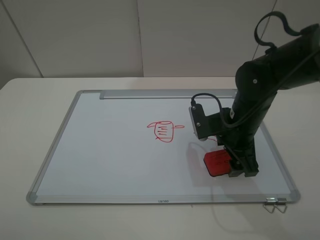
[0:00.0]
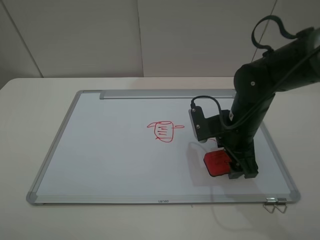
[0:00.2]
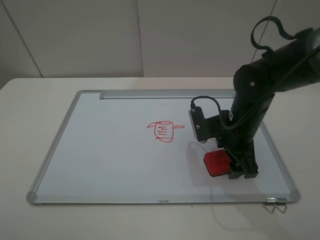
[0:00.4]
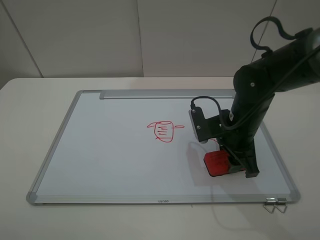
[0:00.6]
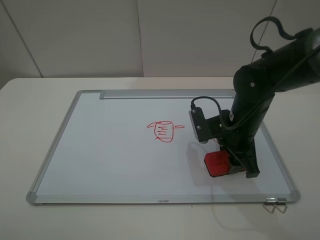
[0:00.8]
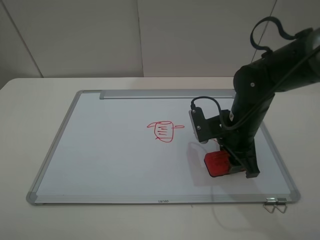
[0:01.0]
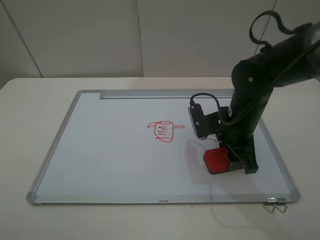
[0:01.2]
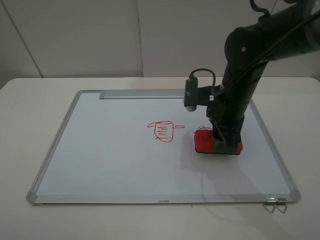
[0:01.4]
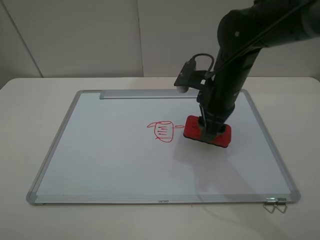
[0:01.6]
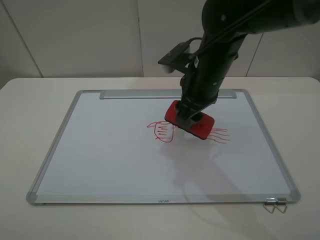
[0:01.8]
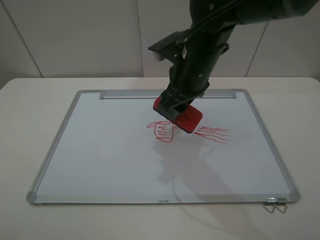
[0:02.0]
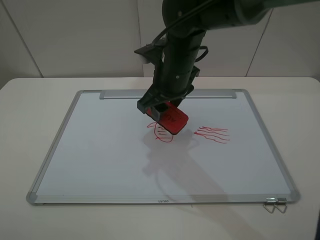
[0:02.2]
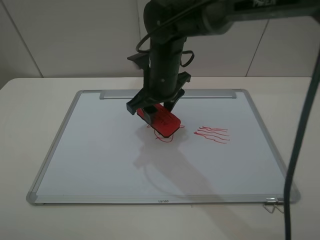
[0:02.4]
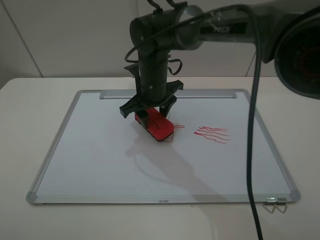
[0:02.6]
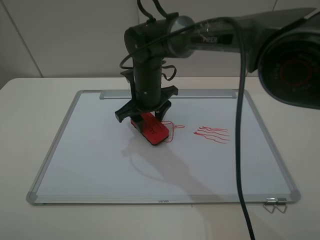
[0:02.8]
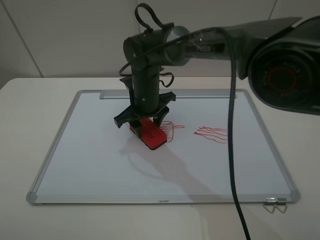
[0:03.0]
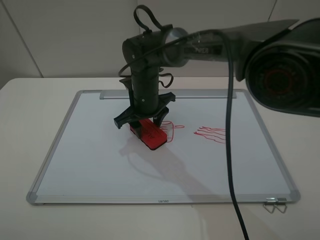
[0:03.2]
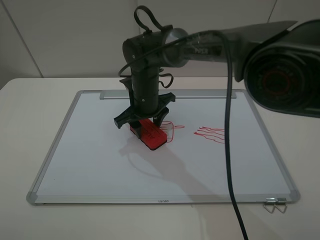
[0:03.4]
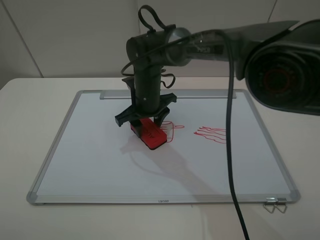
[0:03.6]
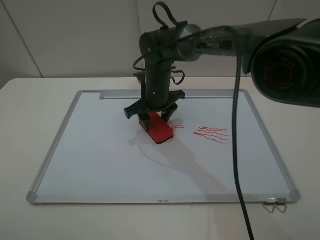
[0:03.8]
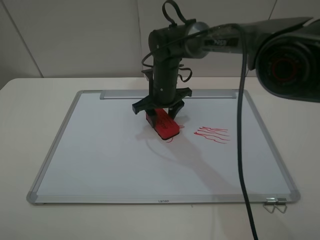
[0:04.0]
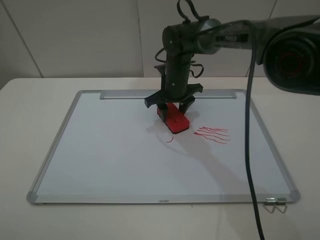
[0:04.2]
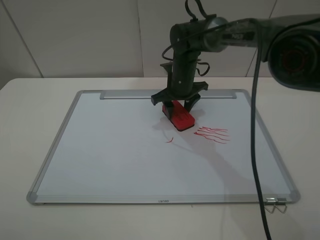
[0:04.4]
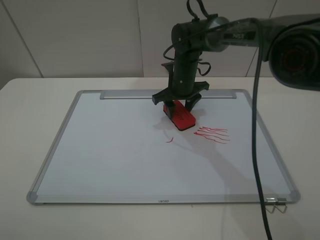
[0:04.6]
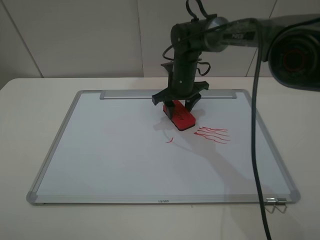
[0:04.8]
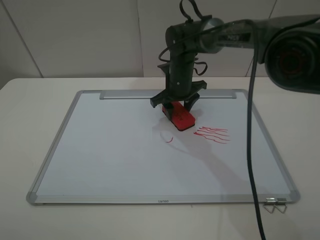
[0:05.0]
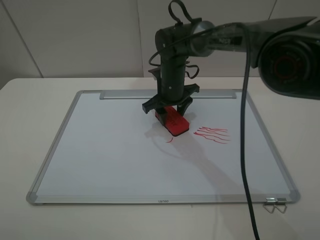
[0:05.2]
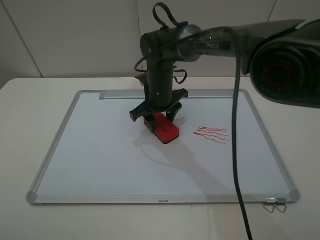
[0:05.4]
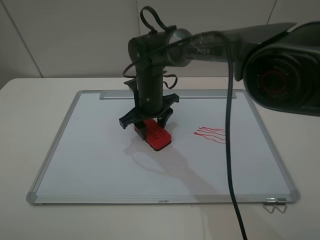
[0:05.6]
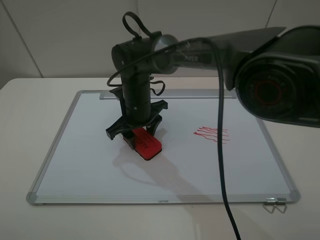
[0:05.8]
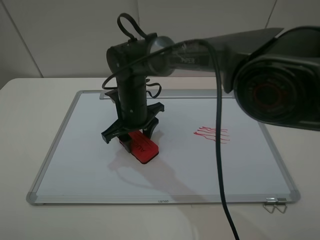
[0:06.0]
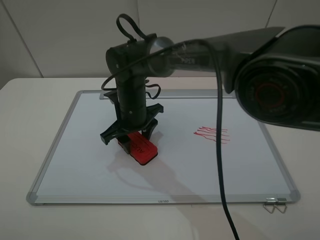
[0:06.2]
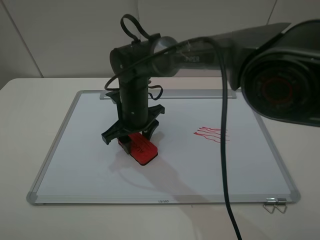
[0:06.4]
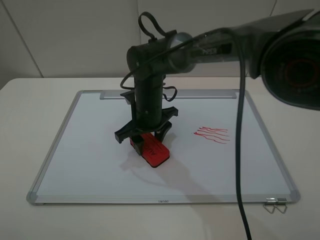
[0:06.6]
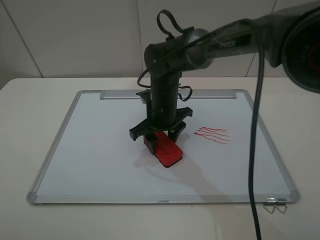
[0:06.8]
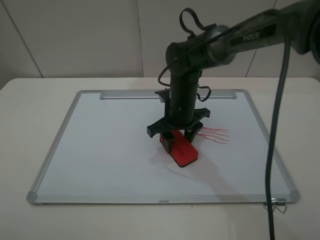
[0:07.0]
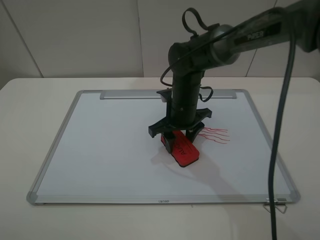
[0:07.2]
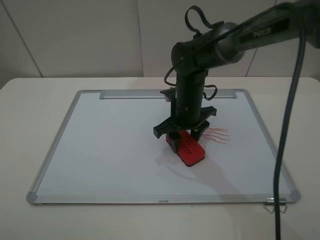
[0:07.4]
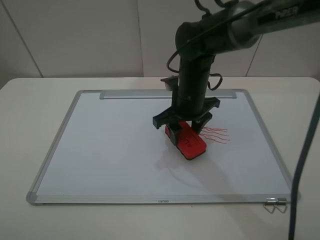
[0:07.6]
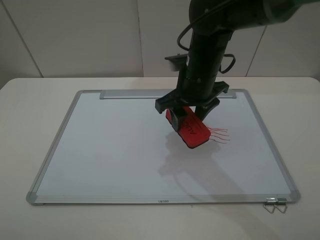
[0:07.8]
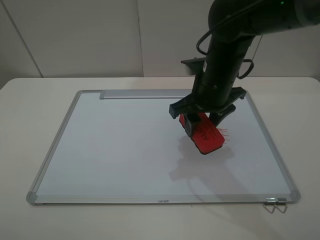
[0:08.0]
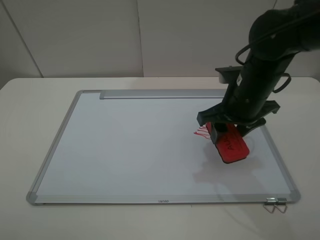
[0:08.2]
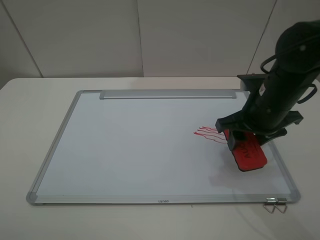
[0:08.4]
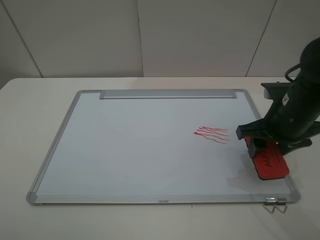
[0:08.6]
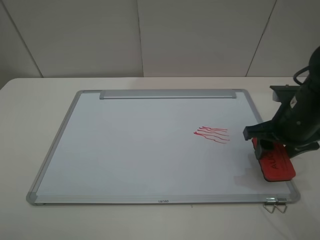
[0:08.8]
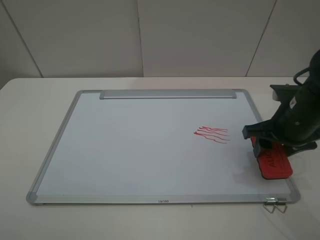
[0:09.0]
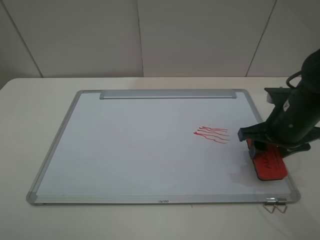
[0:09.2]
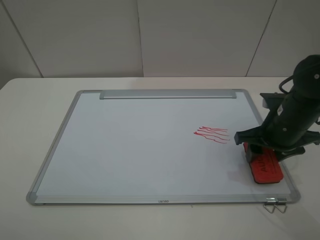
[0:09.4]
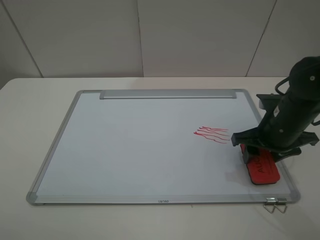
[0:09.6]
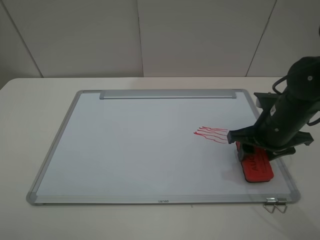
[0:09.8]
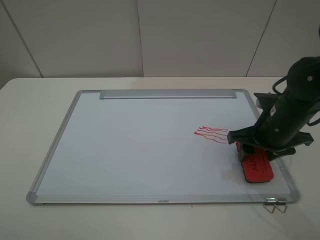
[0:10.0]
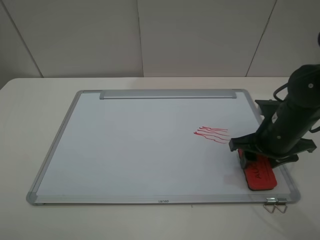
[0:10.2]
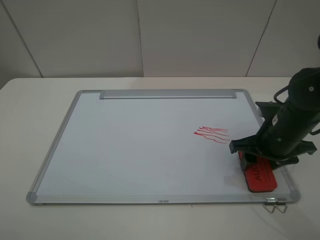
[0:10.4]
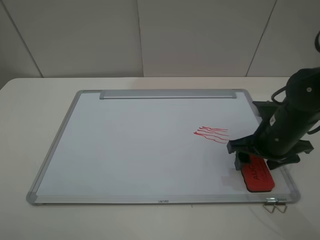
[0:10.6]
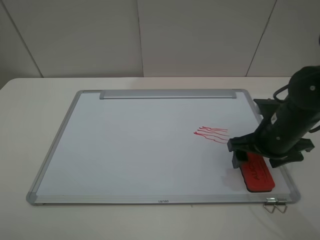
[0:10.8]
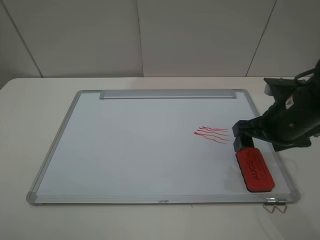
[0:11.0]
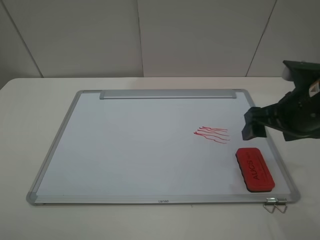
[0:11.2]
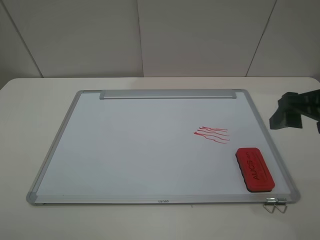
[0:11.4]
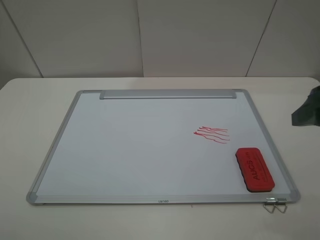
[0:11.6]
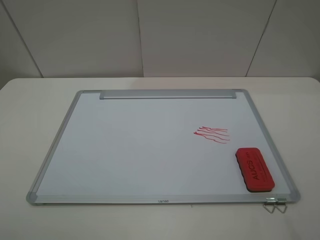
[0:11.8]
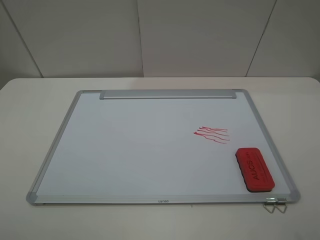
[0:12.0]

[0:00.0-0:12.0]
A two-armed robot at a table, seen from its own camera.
Step, 0.8 to 7.6 s: Grasp the eraser and wipe the blackboard with the right gripper.
Step, 7.8 to 10.8 s: Place the eraser with the right gripper.
0.0 to 1.6 s: The right gripper shifts approximately 5 cm upward, and closes its fingers.
1.6 to 3.0 s: The right gripper travels to the left, downward and forward by about 15 cm.
3.0 to 4.4 s: The right gripper travels to the right and forward by about 10 cm.
4.4 to 6.0 s: The right gripper goes some 15 cm to the left and backward.
6.0 to 7.6 s: The right gripper travels to the right by some 10 cm.
7.6 to 9.0 s: The right gripper is displaced to the right and backward by roughly 20 cm.
9.0 to 10.4 s: There are only small adjustments of the grippers.
10.4 to 12.0 s: The right gripper goes about 25 cm upward and backward, and opens its fingers.

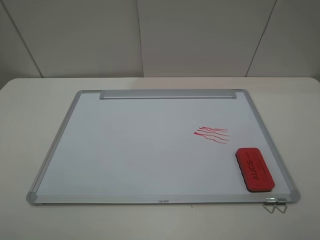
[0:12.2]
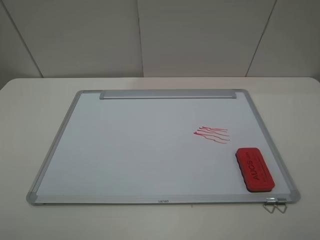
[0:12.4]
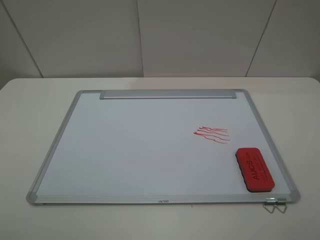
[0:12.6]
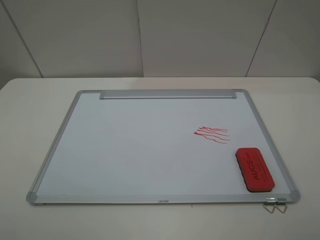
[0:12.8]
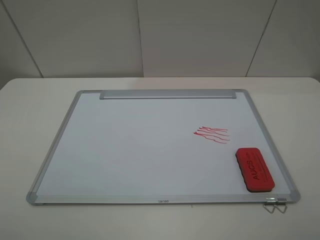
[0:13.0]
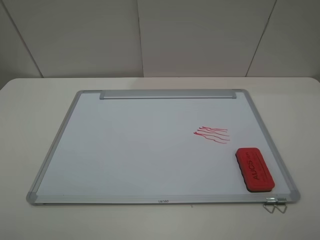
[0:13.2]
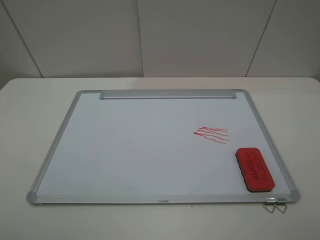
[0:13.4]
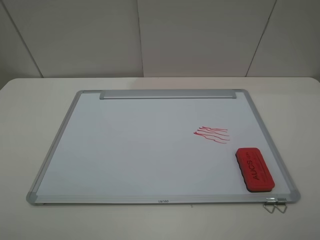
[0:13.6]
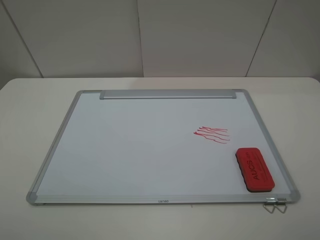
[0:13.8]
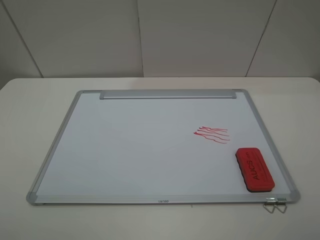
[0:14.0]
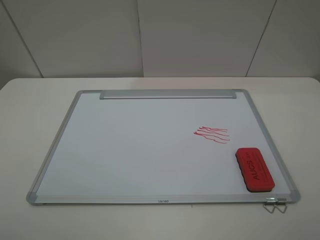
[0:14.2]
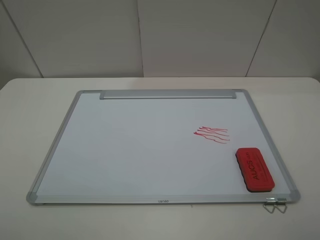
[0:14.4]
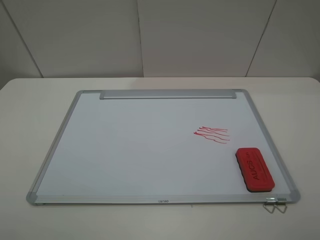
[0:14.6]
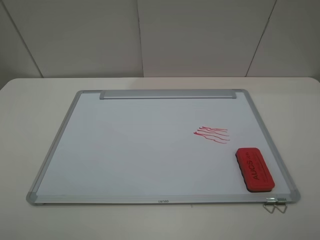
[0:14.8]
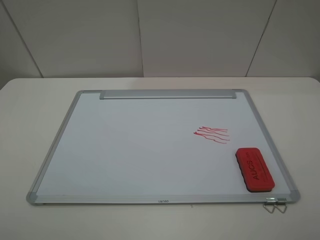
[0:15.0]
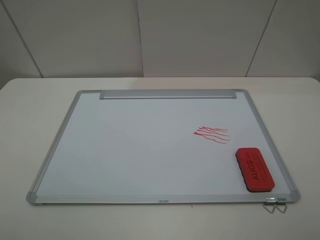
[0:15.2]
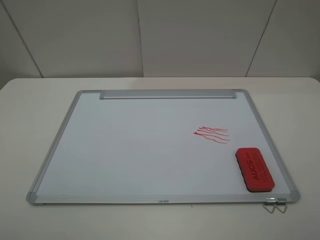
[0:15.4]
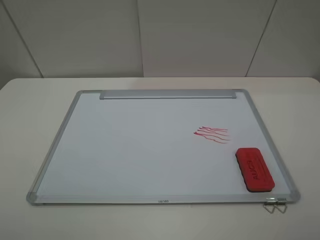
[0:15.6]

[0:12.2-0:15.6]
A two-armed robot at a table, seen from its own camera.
13.8 to 15.6 s: The two grippers keep their place.

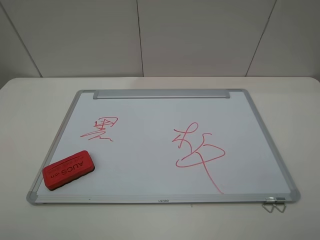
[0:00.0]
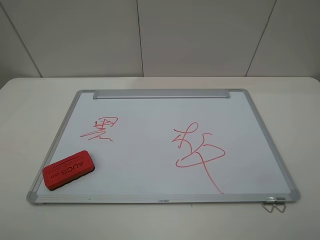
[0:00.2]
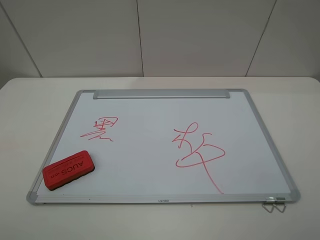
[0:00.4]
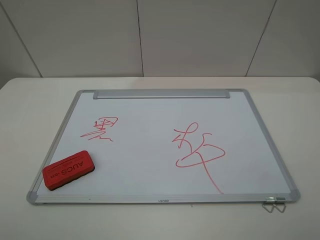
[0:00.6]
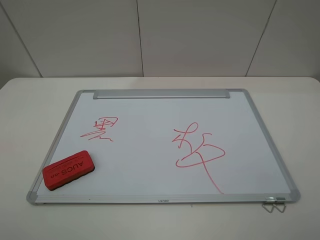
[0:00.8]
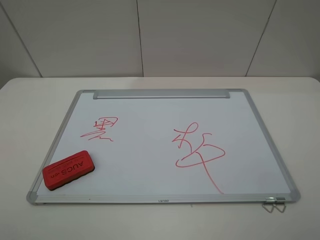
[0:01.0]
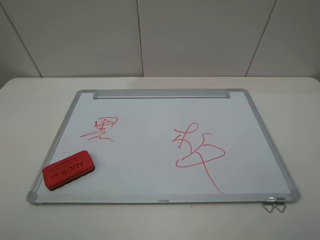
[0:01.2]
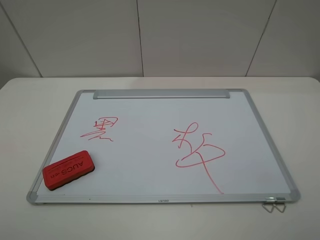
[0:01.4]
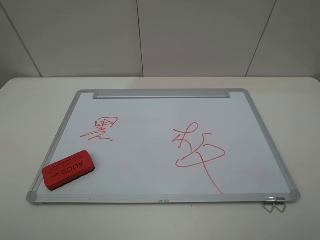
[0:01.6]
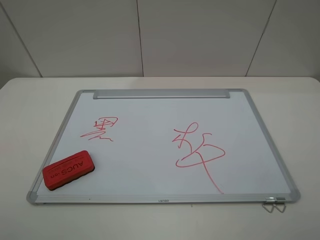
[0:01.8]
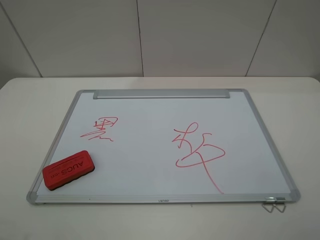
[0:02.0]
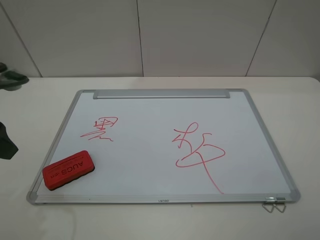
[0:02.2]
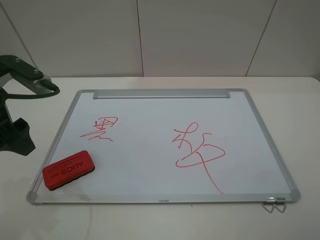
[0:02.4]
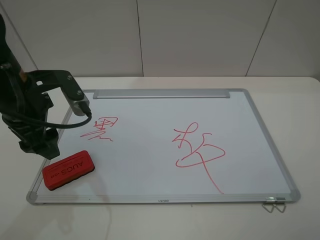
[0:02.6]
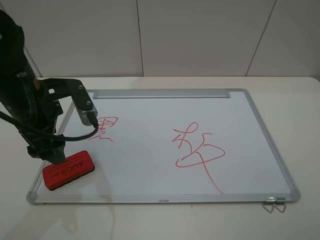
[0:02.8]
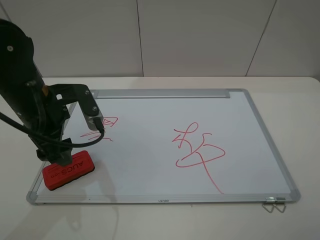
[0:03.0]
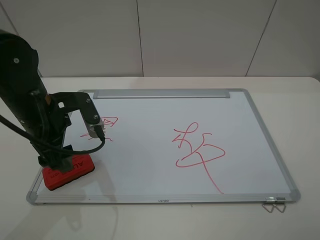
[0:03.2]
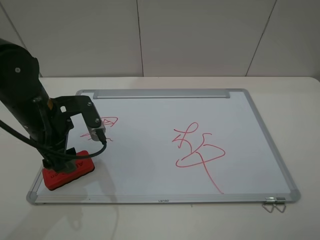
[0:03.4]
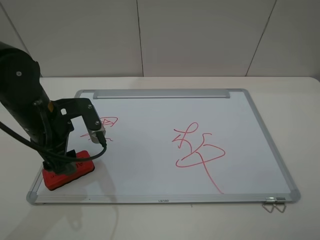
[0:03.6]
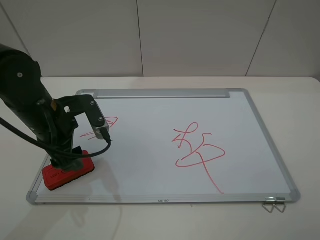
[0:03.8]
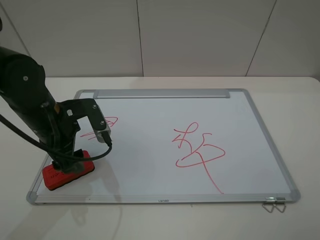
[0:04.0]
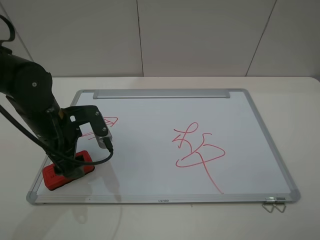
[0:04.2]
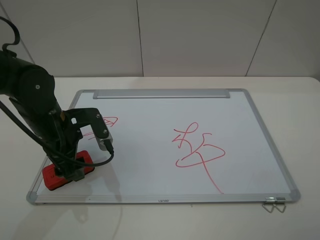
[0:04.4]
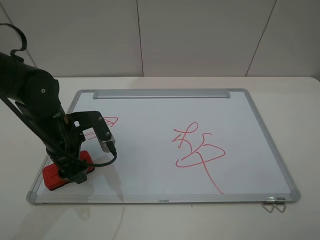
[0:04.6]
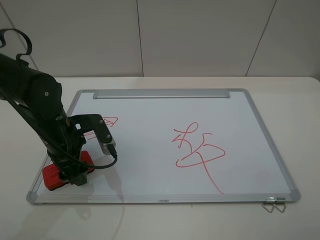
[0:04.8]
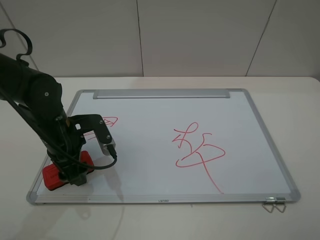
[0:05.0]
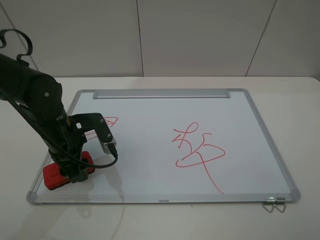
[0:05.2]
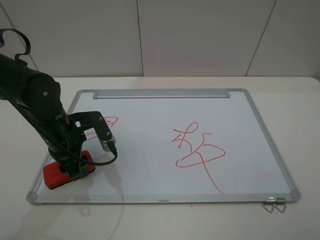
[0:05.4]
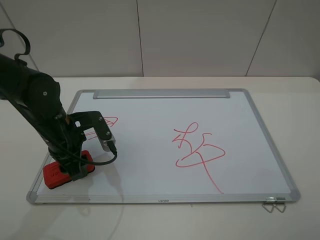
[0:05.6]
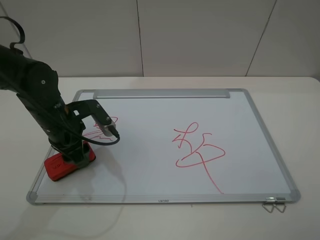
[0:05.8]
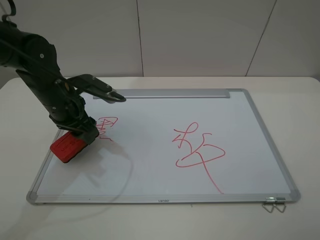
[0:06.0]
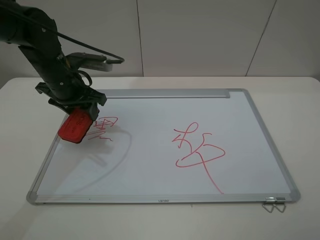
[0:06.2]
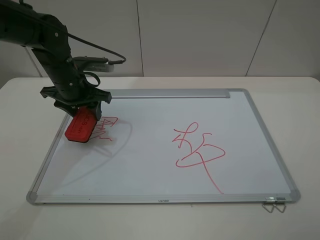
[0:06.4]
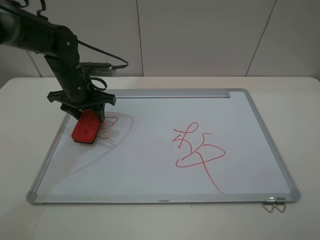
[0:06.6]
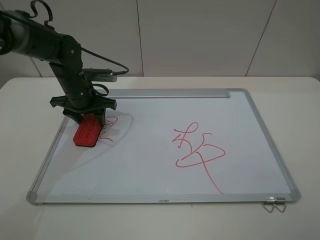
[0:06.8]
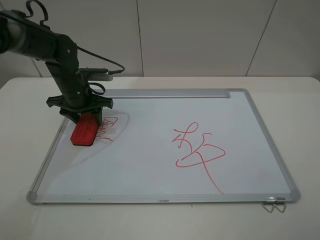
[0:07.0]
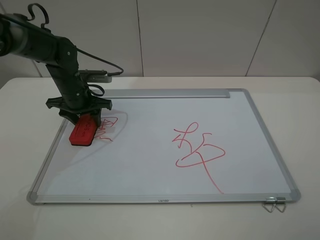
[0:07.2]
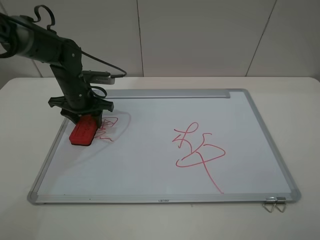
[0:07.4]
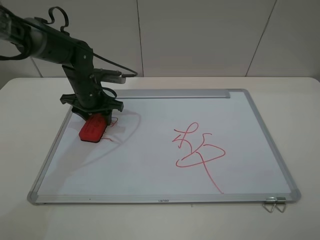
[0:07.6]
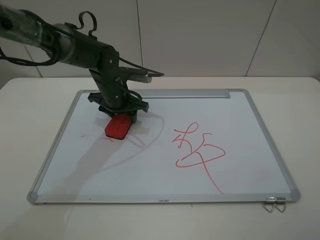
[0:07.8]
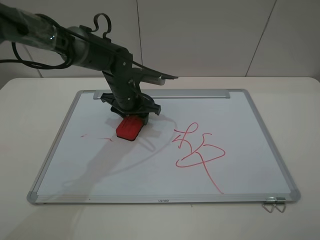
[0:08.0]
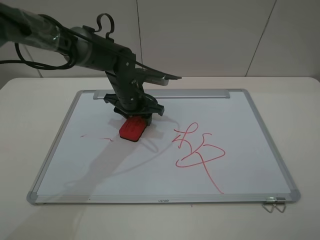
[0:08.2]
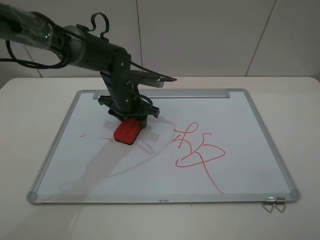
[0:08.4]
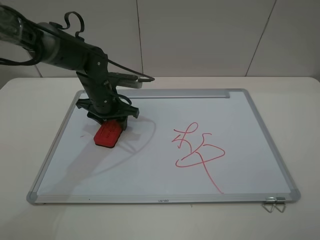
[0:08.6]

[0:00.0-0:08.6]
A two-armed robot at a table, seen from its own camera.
Step, 0.0 to 5.2 s: Grasp the eraser with the left gripper.
0.0 to 1.4 s: Both grippers stay put.
1.4 to 2.8 s: The left gripper heads forward and to the right, covering roughly 25 cm.
2.8 to 4.4 s: The left gripper heads downward, covering some 5 cm.
4.4 to 5.8 s: The left gripper closes its fingers.
5.8 to 7.2 s: The left gripper travels forward by about 10 cm.
7.2 to 8.6 s: The left gripper travels to the right by roughly 5 cm.
